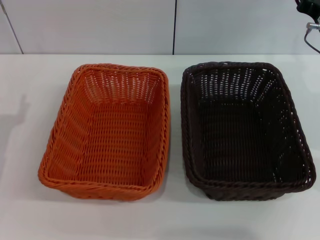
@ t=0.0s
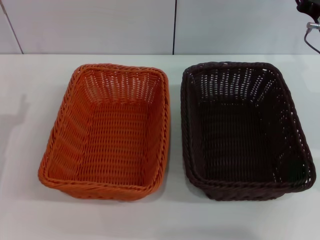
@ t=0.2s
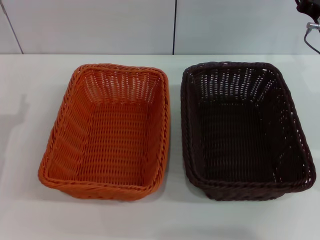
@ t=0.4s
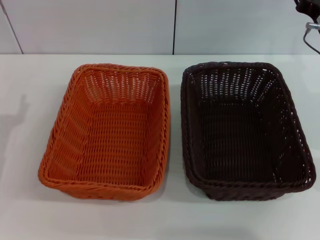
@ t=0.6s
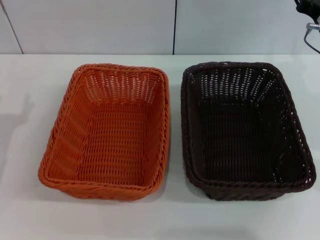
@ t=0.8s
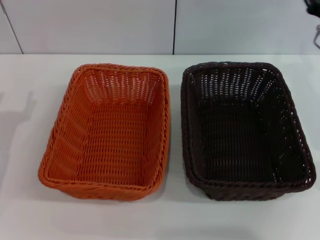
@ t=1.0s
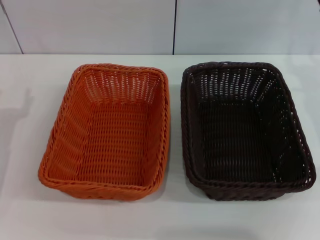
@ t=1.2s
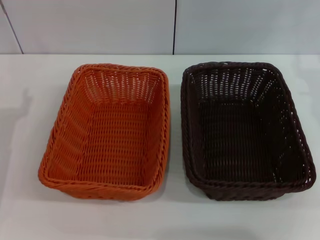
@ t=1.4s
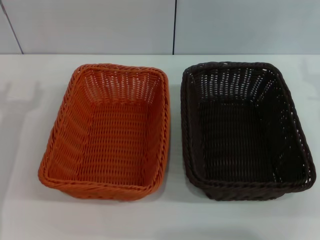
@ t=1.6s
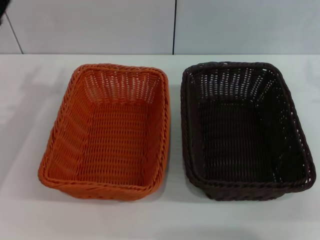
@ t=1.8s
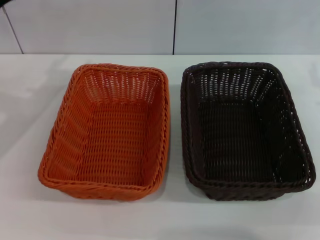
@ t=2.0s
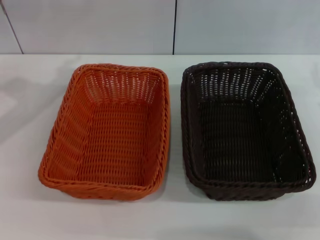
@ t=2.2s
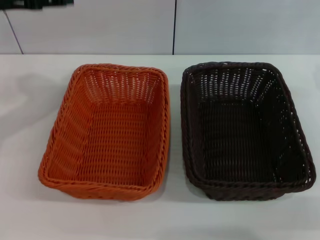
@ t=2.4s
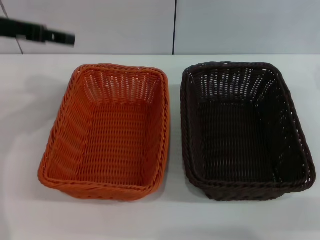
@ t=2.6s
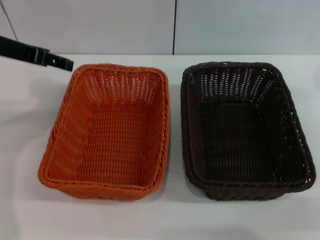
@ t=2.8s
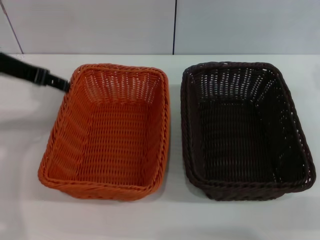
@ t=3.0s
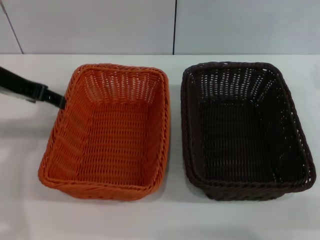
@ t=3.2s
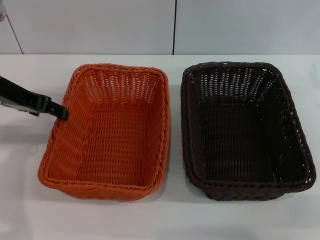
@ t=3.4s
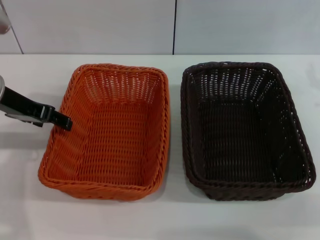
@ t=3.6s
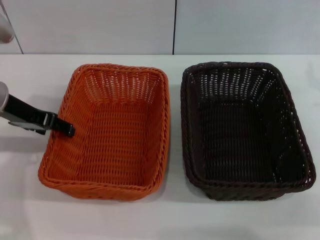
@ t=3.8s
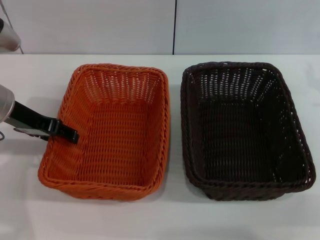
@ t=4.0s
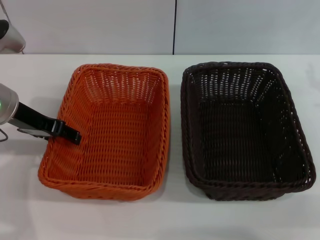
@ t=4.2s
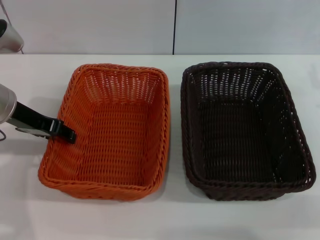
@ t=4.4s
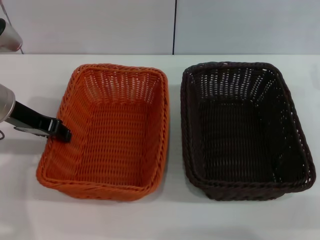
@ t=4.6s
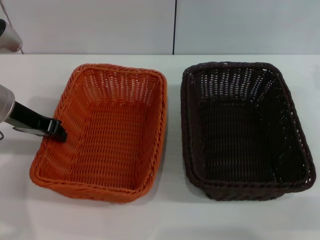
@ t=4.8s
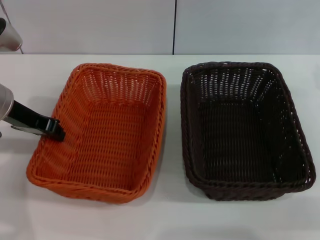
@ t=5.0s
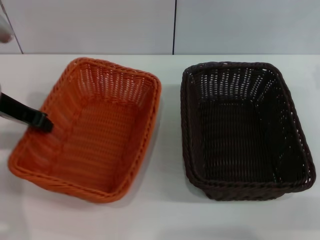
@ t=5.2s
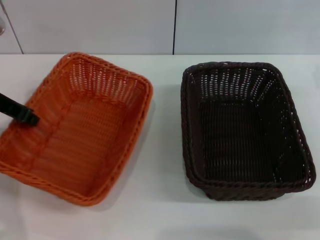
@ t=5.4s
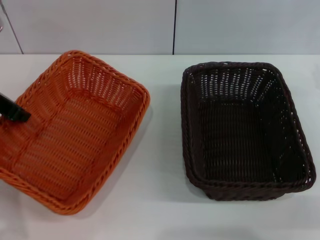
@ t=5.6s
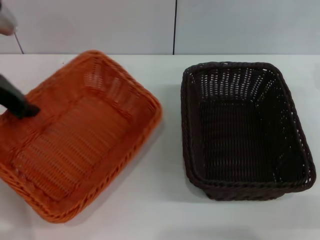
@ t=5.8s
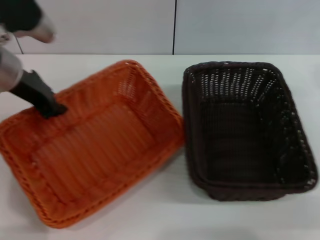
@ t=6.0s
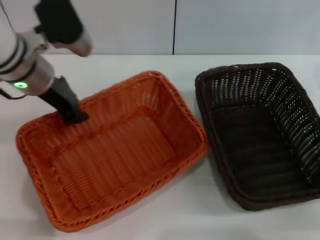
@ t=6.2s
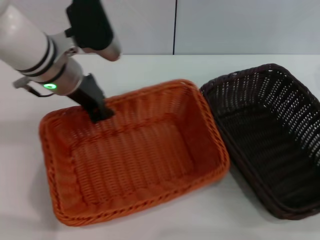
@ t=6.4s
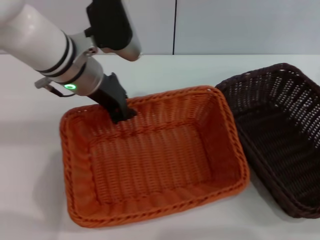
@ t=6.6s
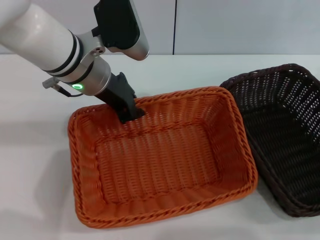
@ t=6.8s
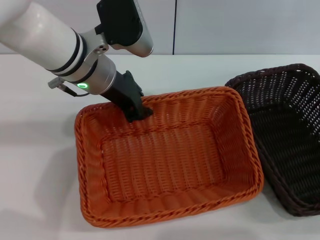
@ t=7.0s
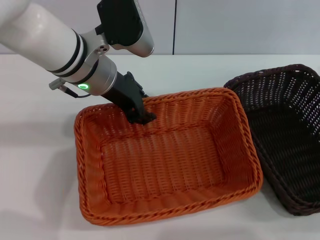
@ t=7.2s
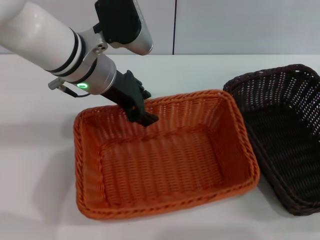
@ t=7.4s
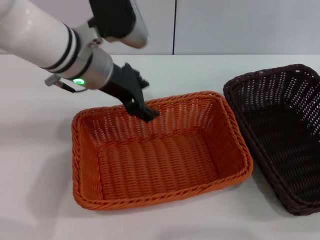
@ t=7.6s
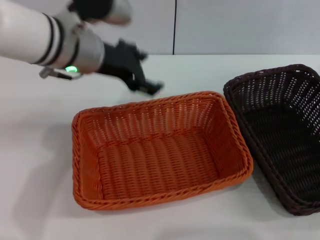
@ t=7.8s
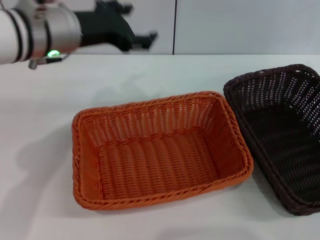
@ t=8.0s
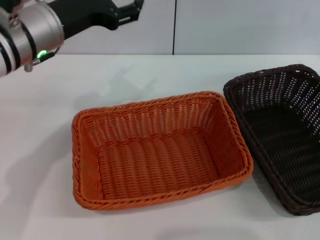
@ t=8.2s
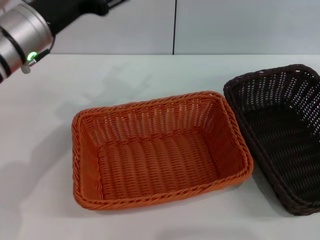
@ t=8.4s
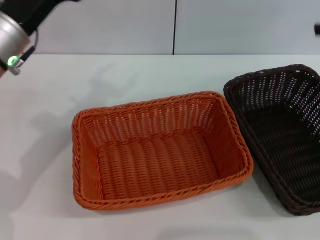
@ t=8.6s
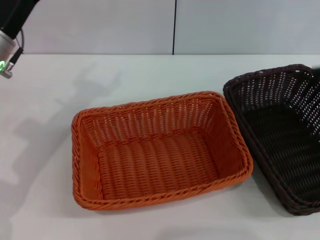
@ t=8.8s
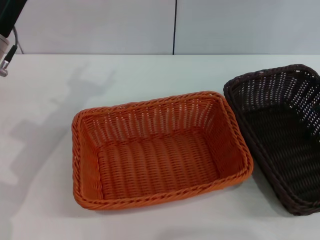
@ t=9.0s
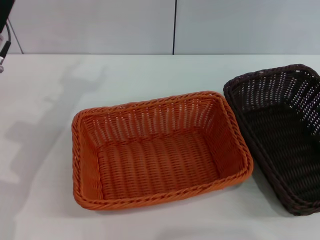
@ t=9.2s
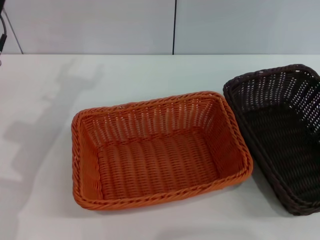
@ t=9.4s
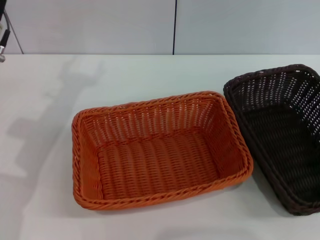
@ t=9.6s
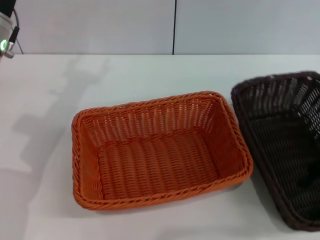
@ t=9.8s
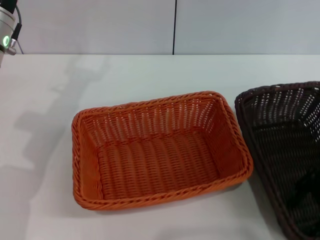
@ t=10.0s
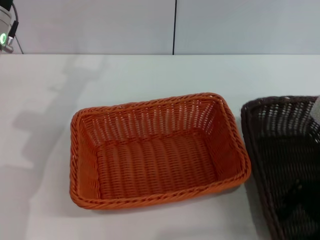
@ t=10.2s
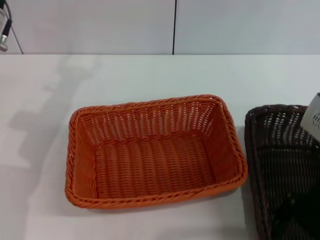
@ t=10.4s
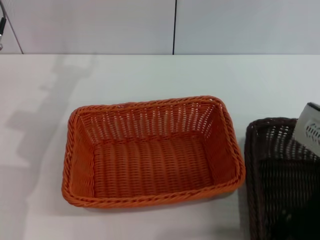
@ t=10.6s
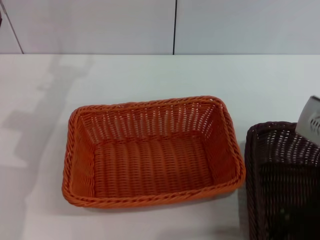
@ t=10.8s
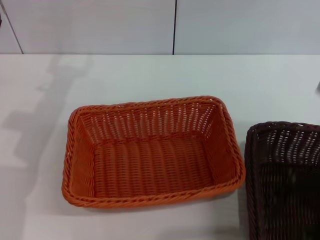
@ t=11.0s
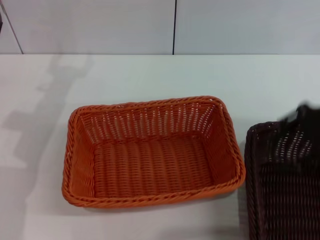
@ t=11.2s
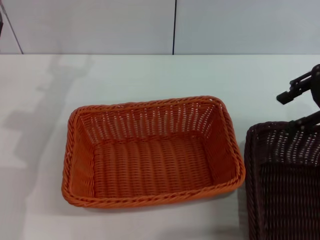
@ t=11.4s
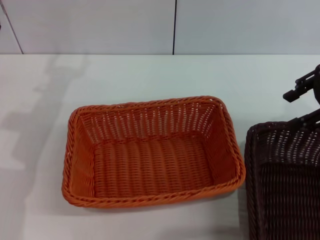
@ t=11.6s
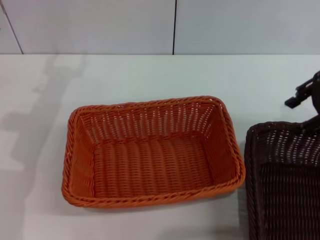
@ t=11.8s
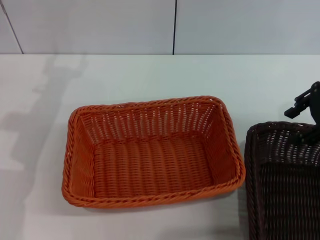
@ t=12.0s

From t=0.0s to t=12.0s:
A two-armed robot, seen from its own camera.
Step, from t=0.0s to t=5.6s: Pick up the light basket with the left gripper.
Step, from t=5.8s to t=7.4s: Place the light basket in the center of view with the left gripper.
From t=0.0s to t=1.6s: The right gripper moves to the right, about 5 cm.
From t=1.6s to t=3.0s: The left gripper moves upward and forward, about 15 cm.
From t=3.0s to t=4.4s: The left gripper shifts roughly 5 cm downward.
From t=4.4s to t=6.0s: The left gripper moves about 5 cm, and closes its fingers.
From t=6.0s to t=7.6s: The left gripper heads to the right, covering about 10 cm, and opens up.
From t=7.6s to t=9.0s: The left gripper travels to the left by approximately 10 cm, and opens its fingers; the right gripper shifts about 15 cm upward.
From t=9.0s to t=10.4s: The right gripper is displaced to the left, downward and backward by some 15 cm.
From t=10.4s to t=12.0s: The right gripper moves forward, to the right and upward, about 10 cm.

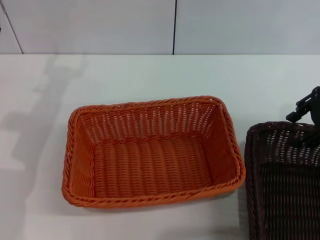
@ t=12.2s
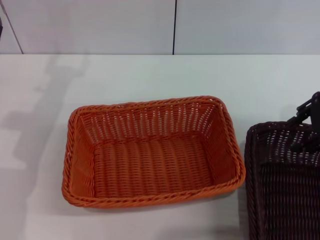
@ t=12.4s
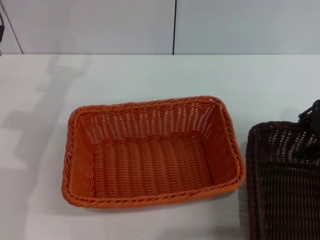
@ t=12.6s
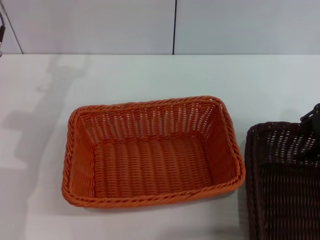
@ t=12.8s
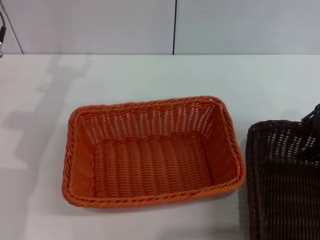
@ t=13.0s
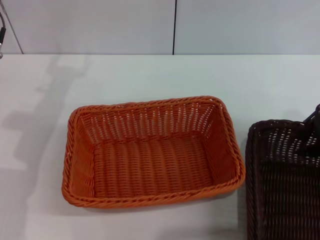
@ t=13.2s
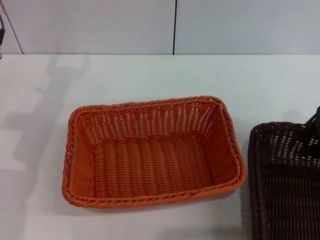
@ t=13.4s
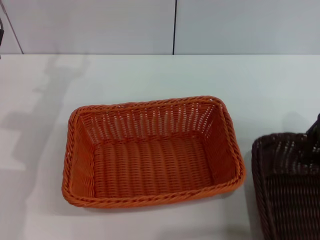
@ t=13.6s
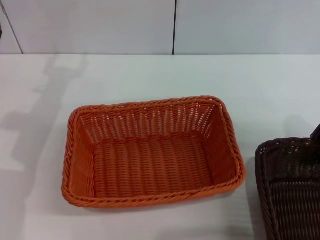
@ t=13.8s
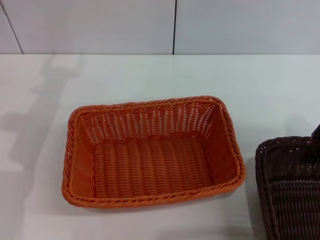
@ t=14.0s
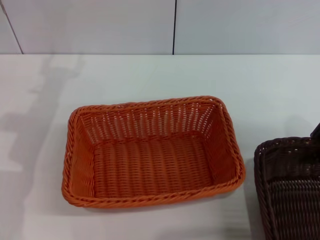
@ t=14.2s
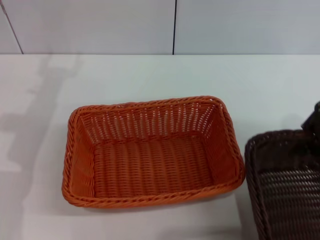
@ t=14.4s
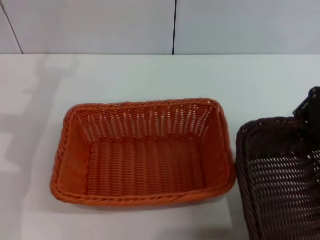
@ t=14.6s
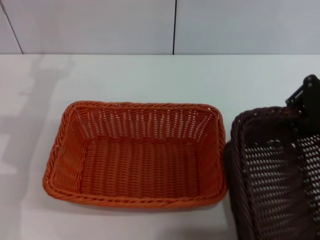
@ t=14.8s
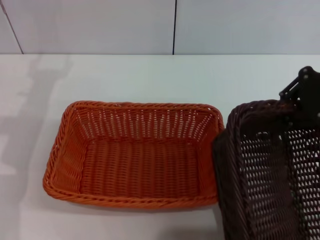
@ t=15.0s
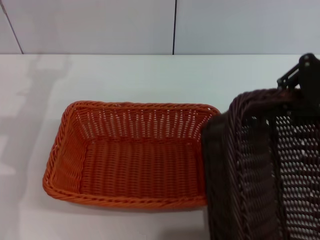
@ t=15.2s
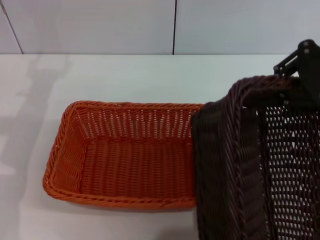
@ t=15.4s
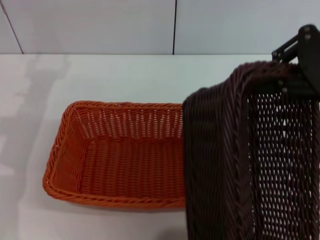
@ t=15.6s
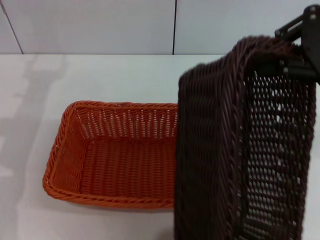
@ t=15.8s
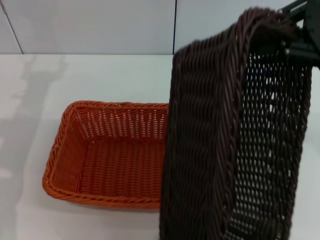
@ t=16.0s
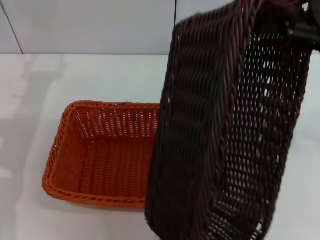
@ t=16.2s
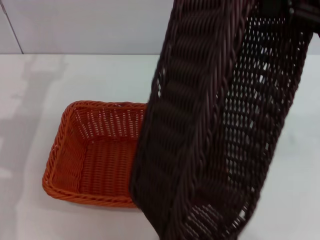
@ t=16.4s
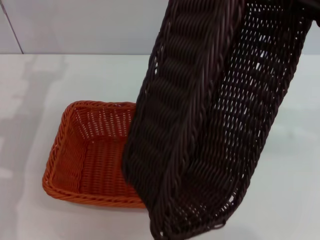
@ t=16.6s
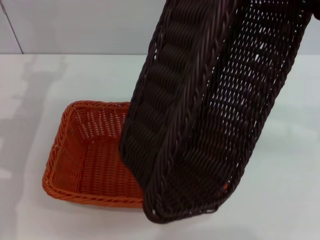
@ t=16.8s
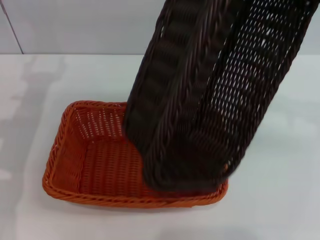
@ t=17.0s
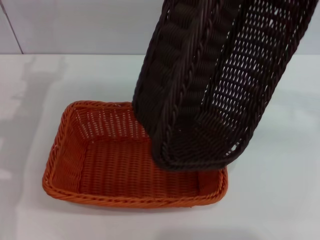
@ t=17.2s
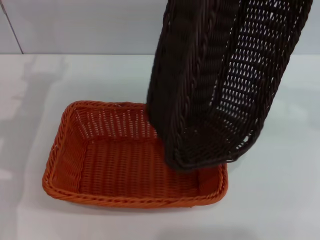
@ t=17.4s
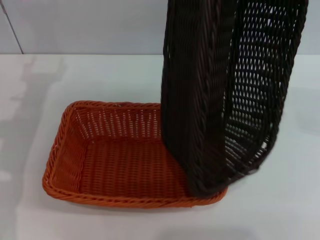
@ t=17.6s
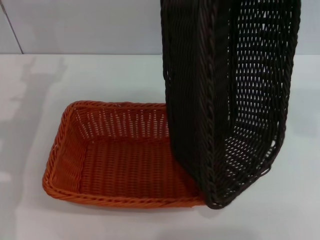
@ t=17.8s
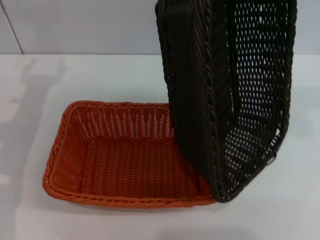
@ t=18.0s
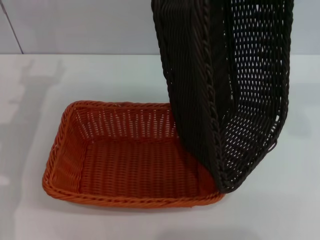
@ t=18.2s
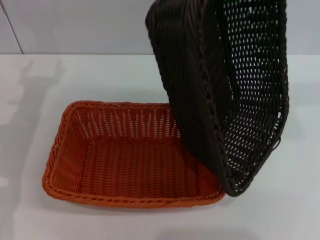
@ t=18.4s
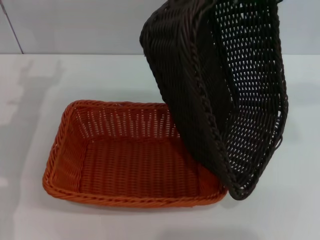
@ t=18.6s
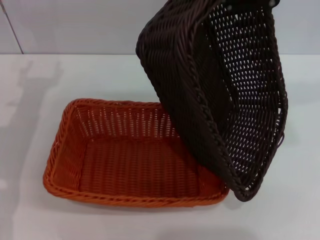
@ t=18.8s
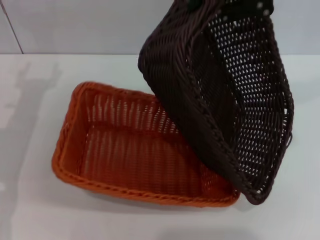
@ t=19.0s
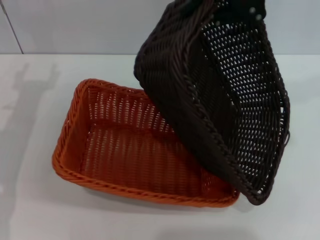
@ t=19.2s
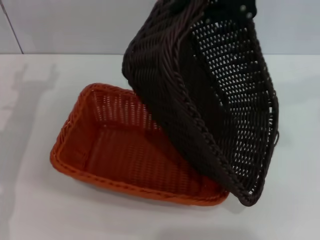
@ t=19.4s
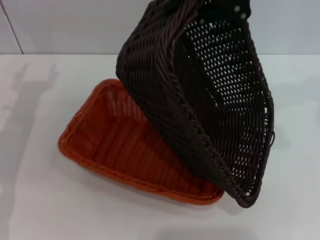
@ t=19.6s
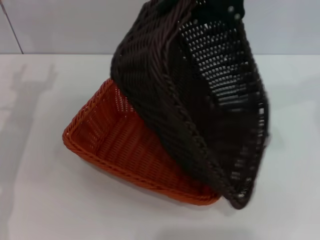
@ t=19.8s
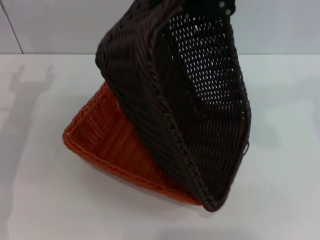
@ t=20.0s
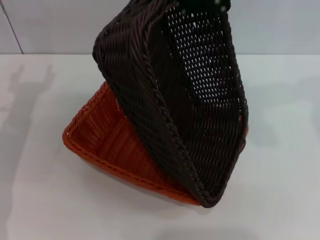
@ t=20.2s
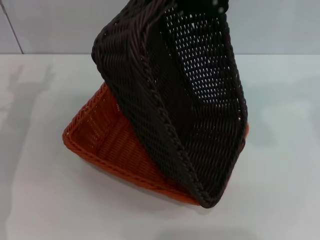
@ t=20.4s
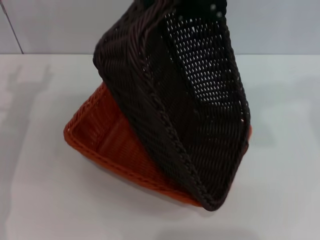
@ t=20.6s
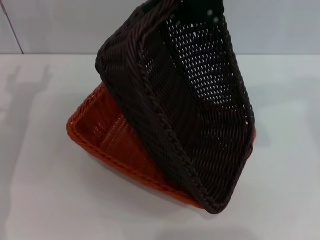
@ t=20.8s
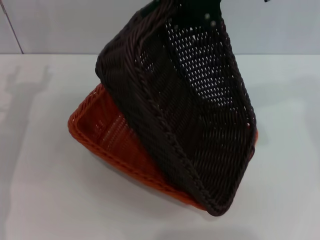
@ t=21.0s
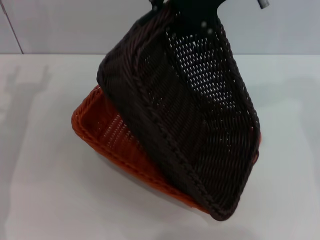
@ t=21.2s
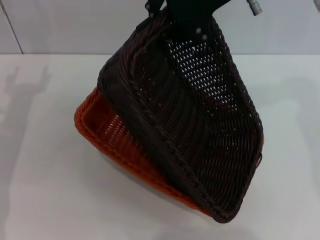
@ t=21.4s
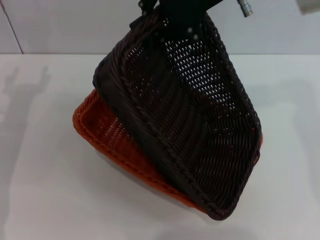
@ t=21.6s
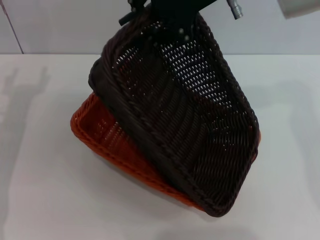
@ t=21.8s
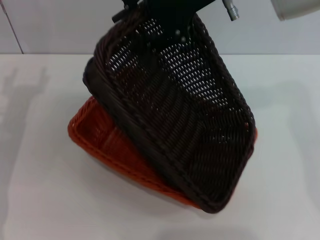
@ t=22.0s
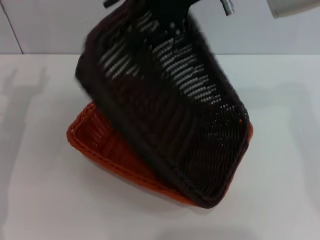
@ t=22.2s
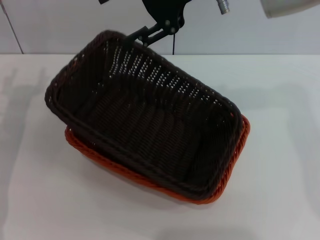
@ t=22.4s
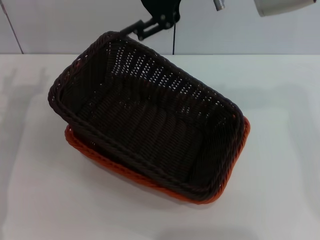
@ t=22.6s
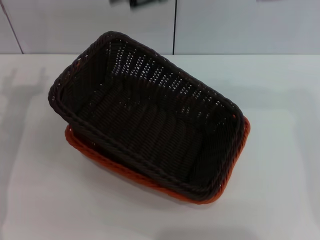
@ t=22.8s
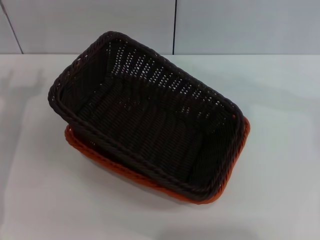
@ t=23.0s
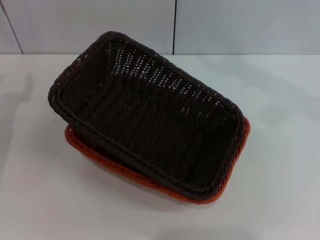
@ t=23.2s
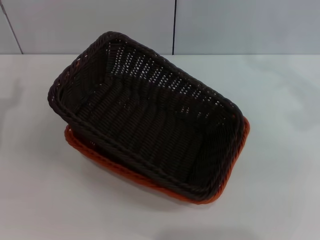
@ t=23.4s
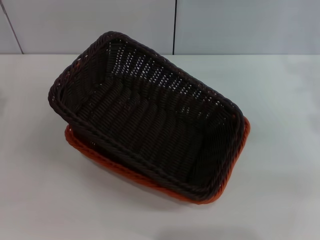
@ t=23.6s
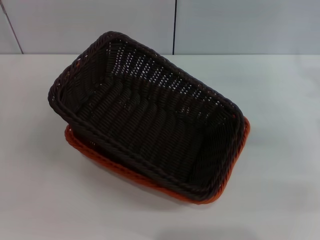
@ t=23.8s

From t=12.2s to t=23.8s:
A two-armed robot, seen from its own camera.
Step, from t=12.2s to t=14.8s: Pick up the dark basket with the right gripper.
Step, from t=15.0s to t=22.4s: Place the dark basket on the light basket with the right gripper.
From t=12.2s to t=13.6s: The right gripper closes up.
From t=13.6s to t=15.0s: The right gripper heads upward, covering about 10 cm, and closes up.
From t=16.6s to t=18.0s: The right gripper goes approximately 10 cm upward and to the left.
From t=18.0s to t=19.4s: The right gripper heads to the left, covering approximately 10 cm.
From t=21.0s to t=22.4s: The right gripper opens.
From t=22.4s to t=23.8s: The right gripper moves to the right and downward, roughly 30 cm. Meanwhile the left gripper moves backward and to the left, about 10 cm.
